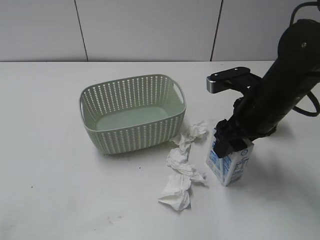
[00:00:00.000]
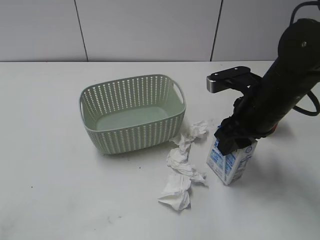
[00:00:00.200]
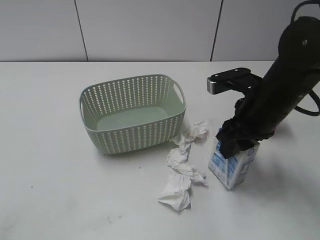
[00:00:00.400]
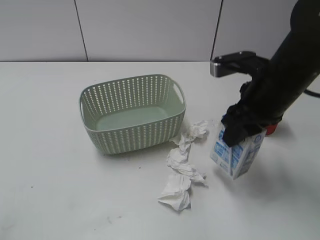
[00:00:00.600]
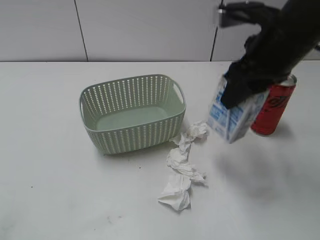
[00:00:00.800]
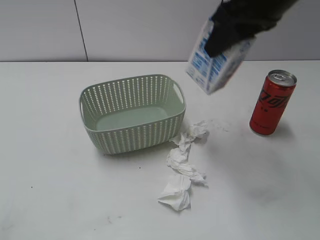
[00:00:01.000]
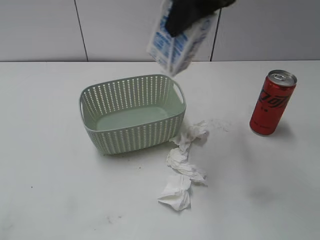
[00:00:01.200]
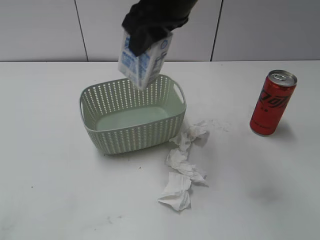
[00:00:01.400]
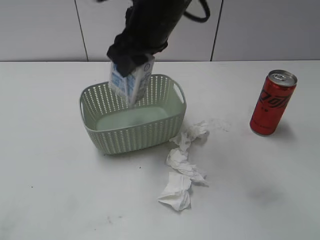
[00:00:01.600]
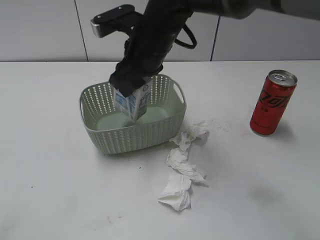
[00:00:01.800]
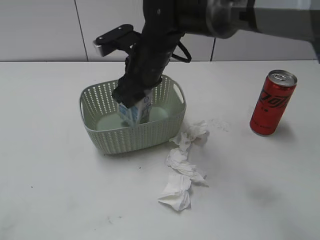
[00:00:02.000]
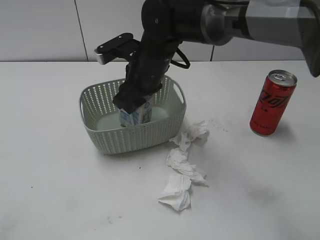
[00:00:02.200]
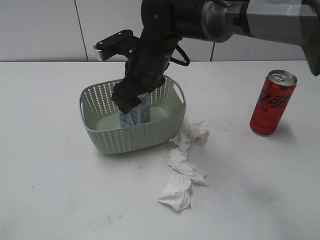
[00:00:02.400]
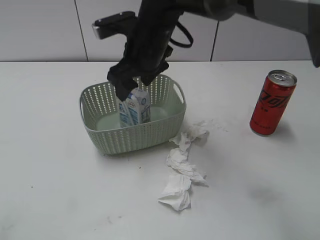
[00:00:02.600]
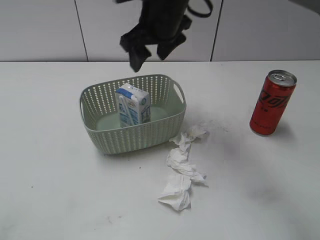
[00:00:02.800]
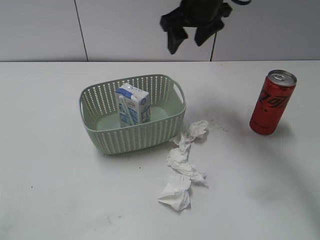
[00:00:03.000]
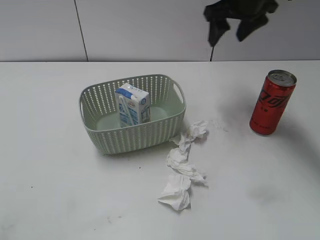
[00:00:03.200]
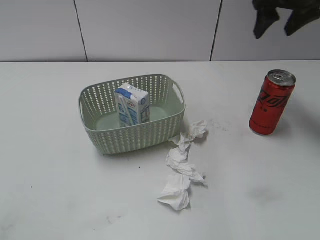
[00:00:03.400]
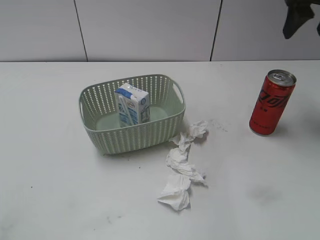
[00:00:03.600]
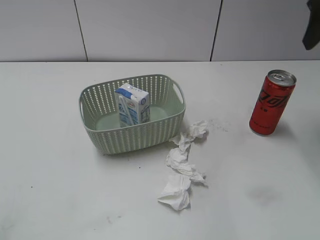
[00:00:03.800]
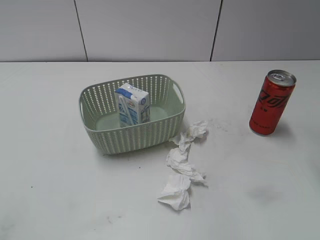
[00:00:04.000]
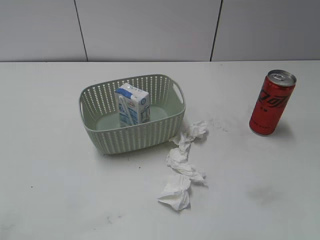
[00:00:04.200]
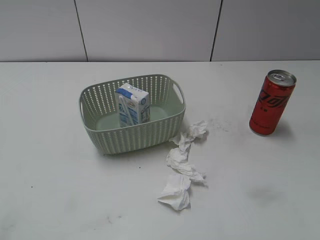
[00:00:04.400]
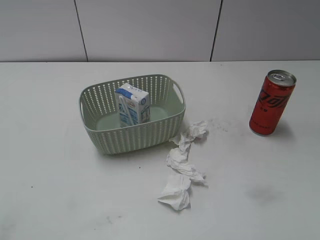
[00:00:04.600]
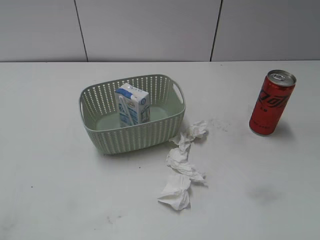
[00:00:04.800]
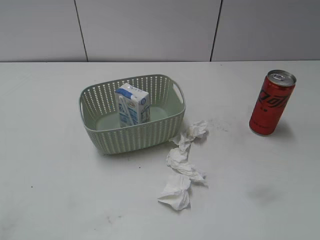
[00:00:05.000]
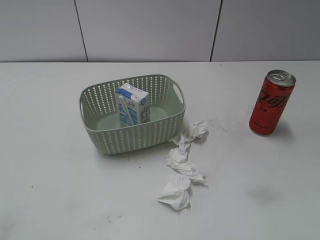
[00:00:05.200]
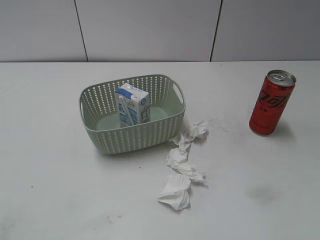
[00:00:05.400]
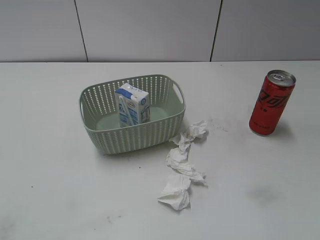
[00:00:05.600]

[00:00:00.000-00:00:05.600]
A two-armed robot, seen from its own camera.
Step, 00:00:00.400 to 00:00:02.800: Place the milk in the basket with right gripper.
00:00:00.000 to 00:00:01.400: The right gripper shifts some 20 cm upward and to the left, and closes.
00:00:01.400 to 00:00:02.800: The right gripper moves forward and downward, approximately 10 cm, and opens.
00:00:02.800 to 00:00:04.200: The right gripper is displaced to the right and backward by about 35 cm.
